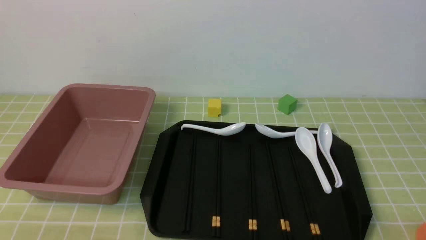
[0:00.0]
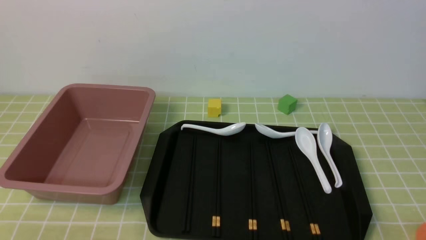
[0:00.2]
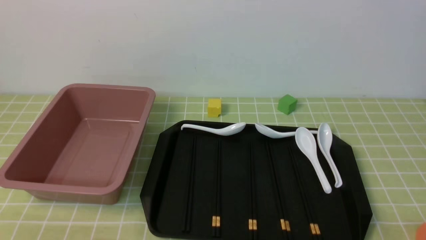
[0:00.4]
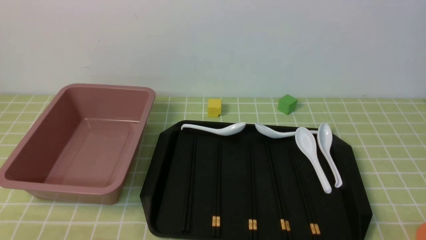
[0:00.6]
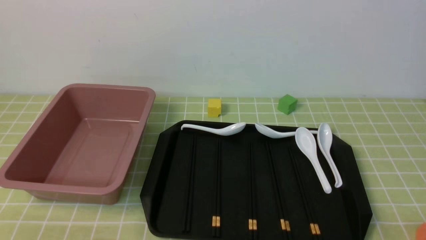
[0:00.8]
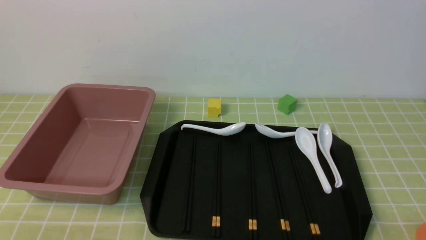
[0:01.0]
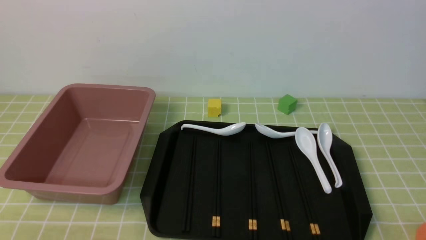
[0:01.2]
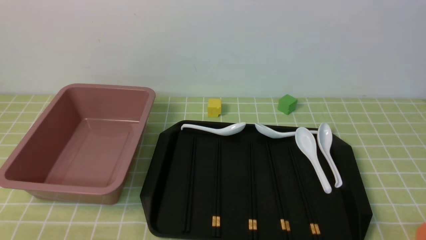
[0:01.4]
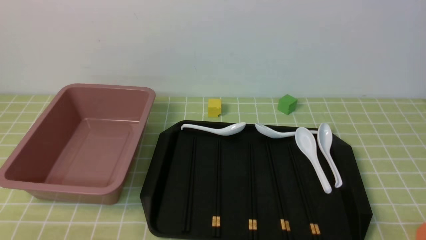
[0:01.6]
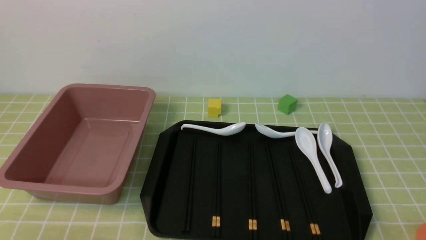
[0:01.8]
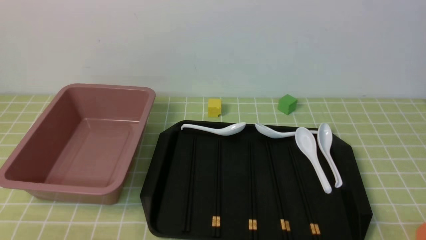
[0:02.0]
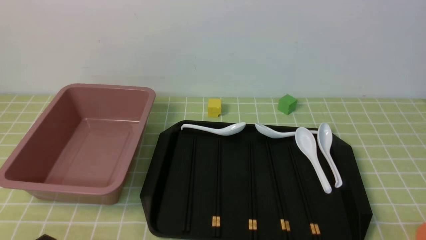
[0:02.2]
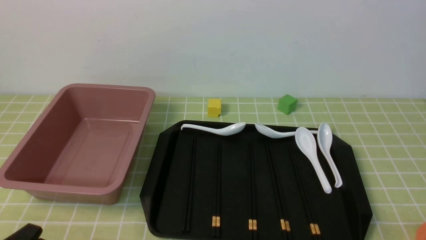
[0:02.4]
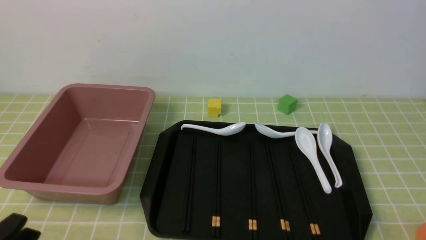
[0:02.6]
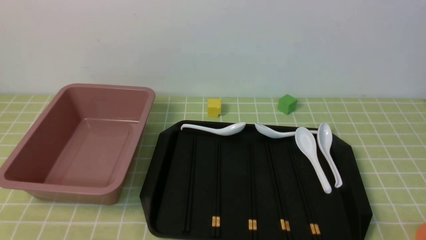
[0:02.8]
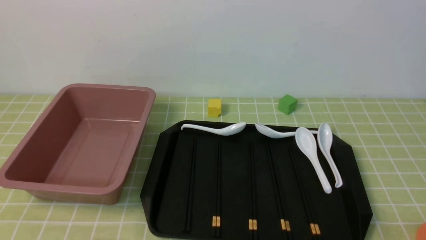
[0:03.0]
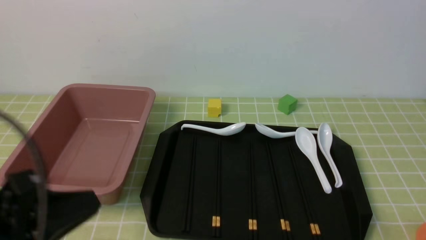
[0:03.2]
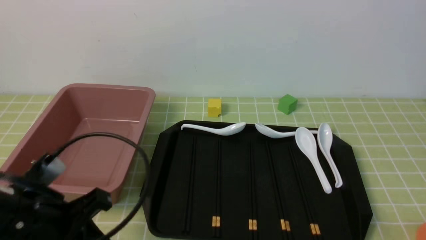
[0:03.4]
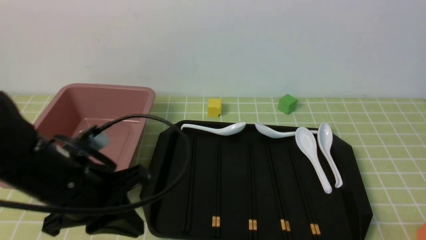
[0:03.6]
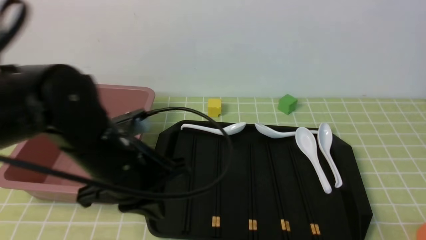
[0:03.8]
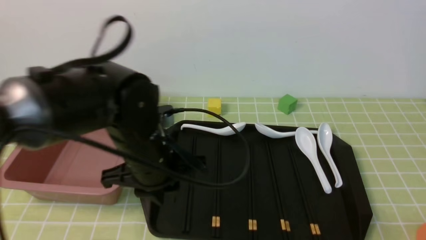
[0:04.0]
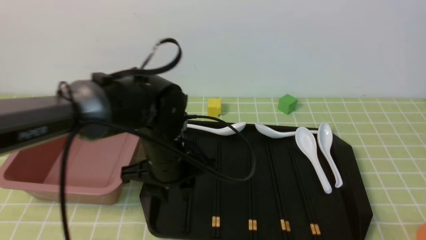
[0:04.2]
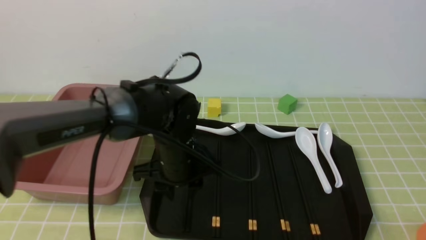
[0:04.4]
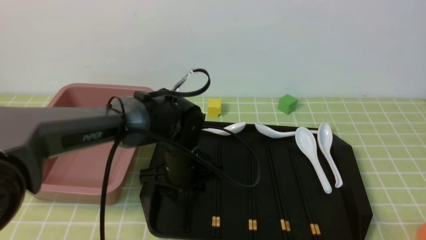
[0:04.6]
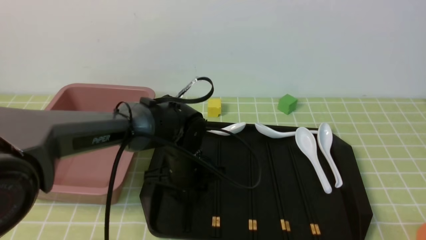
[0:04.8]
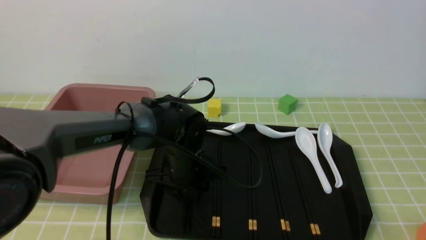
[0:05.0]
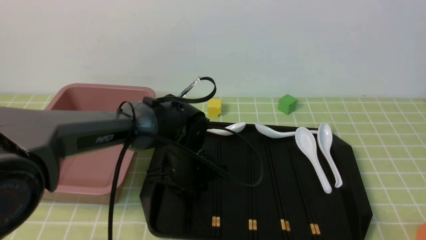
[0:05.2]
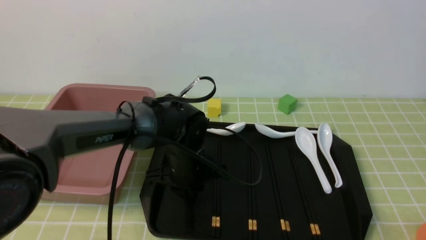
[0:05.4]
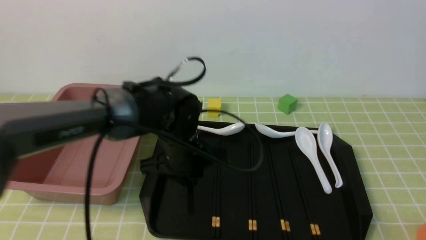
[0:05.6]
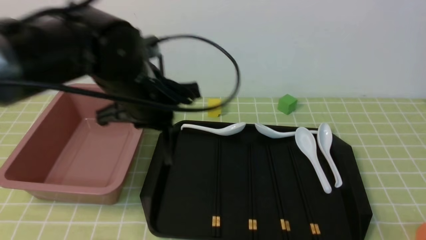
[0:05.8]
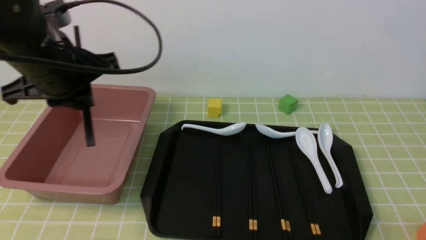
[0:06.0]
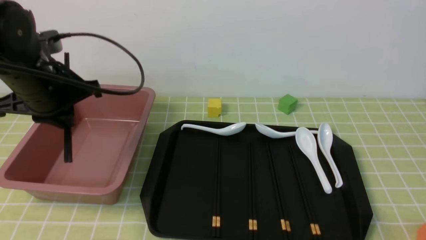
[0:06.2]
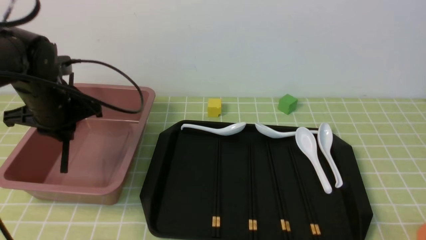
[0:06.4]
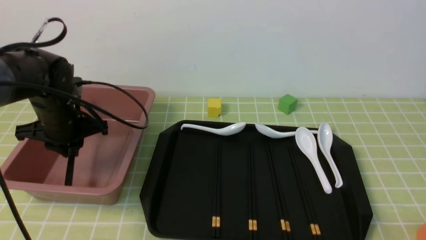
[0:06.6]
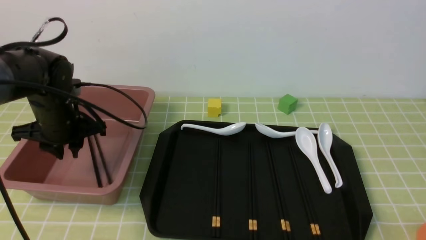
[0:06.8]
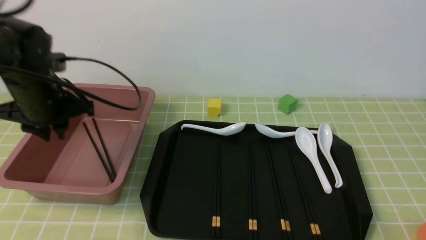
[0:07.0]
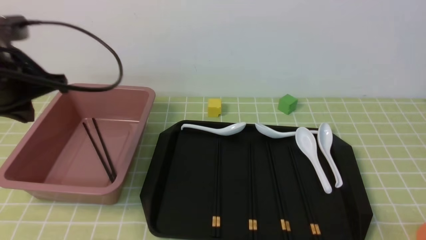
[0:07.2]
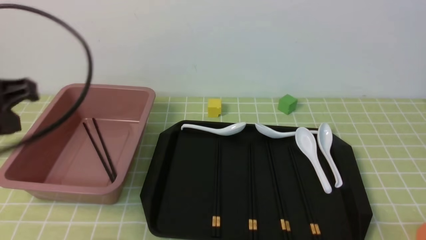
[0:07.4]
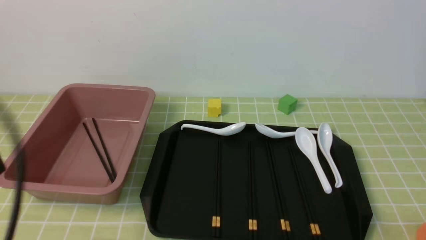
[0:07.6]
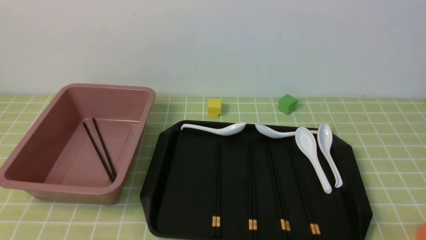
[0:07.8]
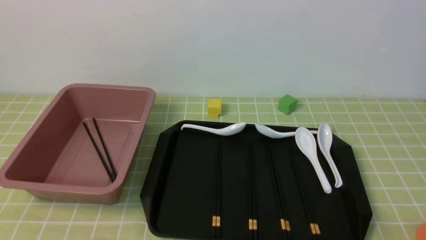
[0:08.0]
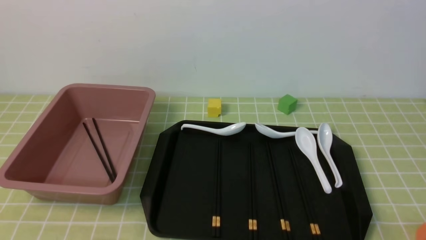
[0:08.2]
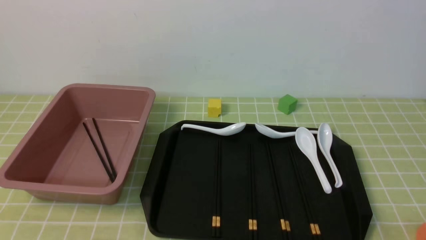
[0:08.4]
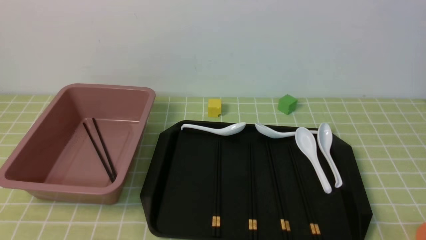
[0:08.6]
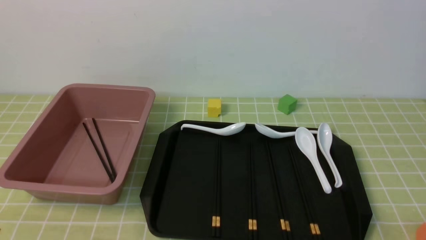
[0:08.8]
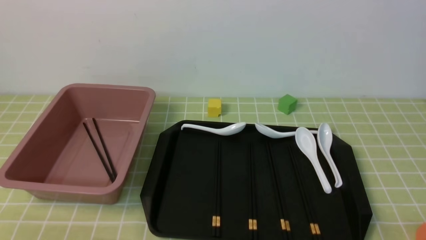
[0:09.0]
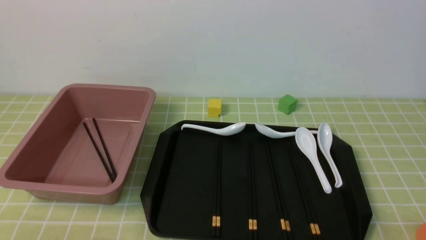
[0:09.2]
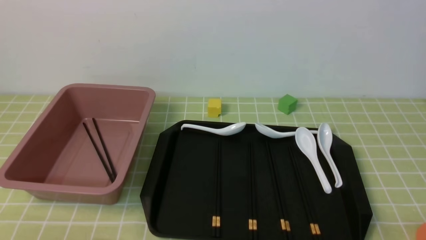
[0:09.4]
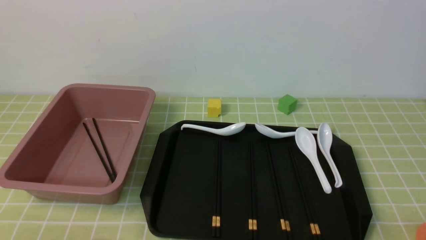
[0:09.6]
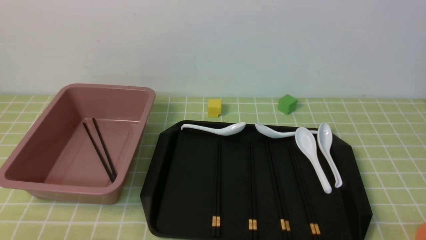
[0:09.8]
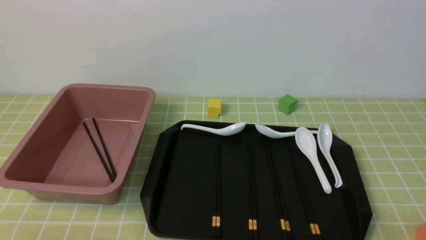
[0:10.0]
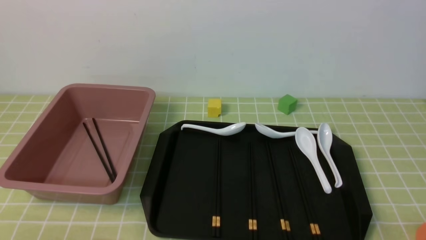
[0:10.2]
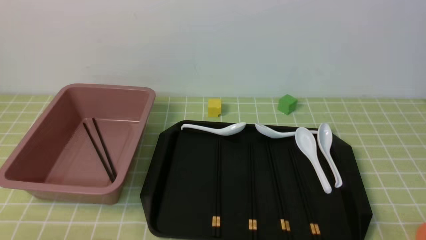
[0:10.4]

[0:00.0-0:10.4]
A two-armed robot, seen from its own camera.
Step, 0:00.0 to 0:05.6: use the left arm to grab a pair of chopsticks.
Step, 0:05.8 to 0:07.0: use the left arm to put the chopsticks into the lunch box.
0:03.0 to 0:04.4: The left gripper moves forward and to the right, some 35 cm, and opens its fingers.
0:04.4 to 0:06.0: The left gripper shifts about 15 cm upward and to the left, and closes up.
0:06.0 to 0:07.4: The left gripper is displaced to the left and backward by roughly 15 cm, and goes downward and returns, roughly 10 cm each way.
0:07.4 to 0:09.0: The left gripper goes some 25 cm backward and downward.

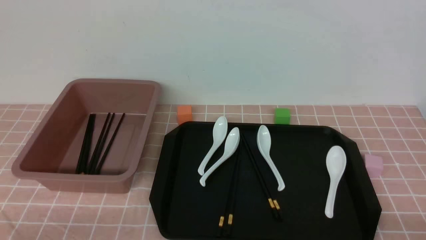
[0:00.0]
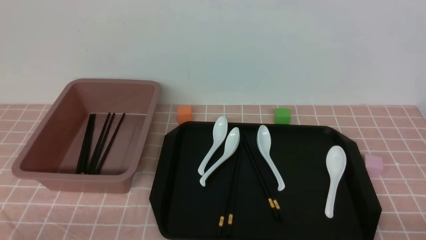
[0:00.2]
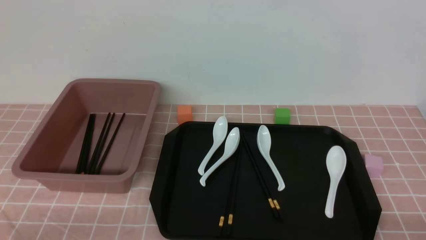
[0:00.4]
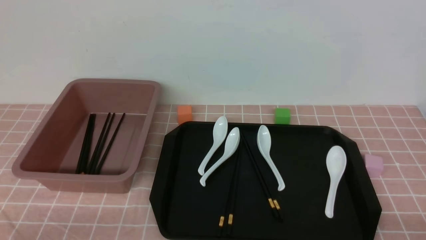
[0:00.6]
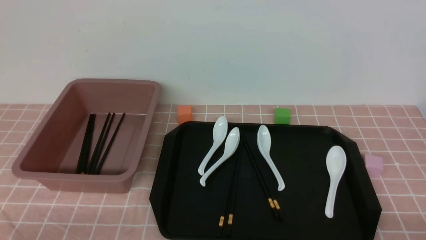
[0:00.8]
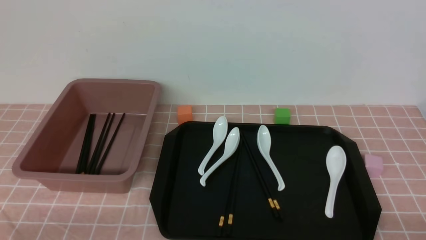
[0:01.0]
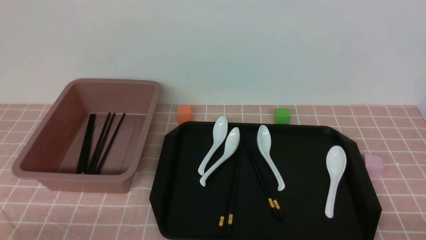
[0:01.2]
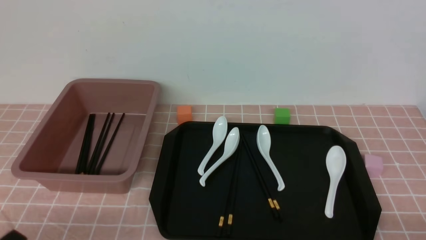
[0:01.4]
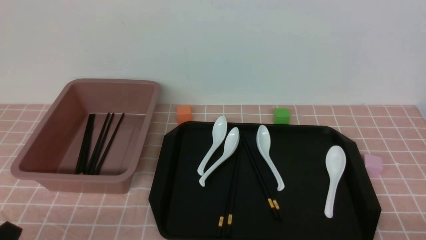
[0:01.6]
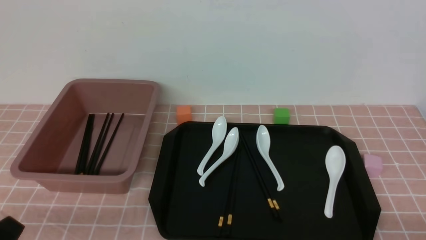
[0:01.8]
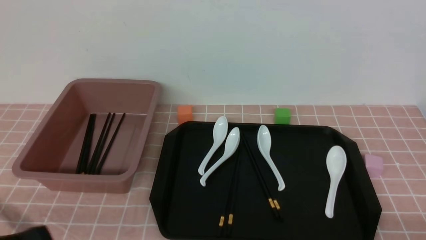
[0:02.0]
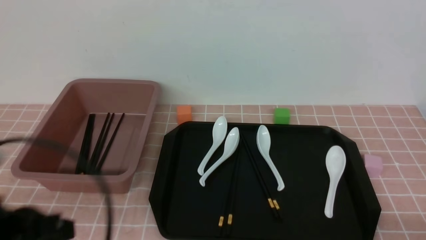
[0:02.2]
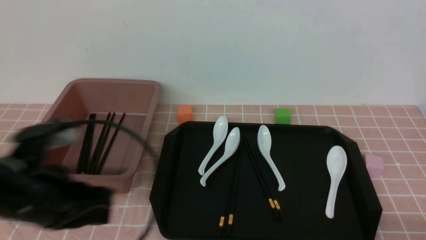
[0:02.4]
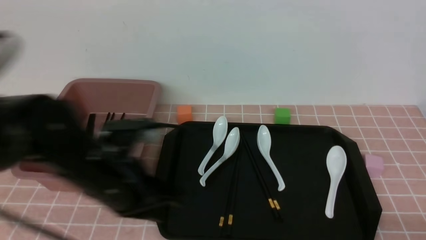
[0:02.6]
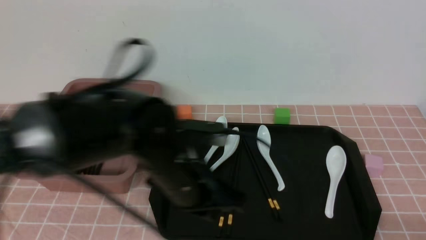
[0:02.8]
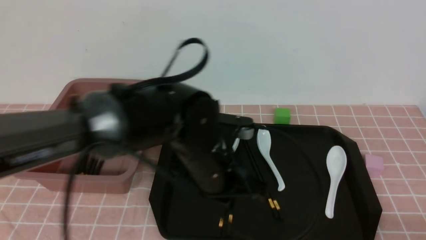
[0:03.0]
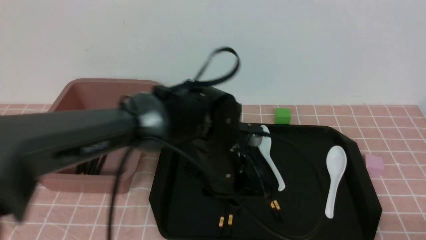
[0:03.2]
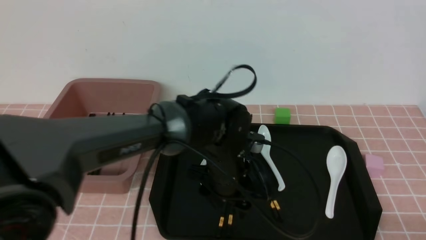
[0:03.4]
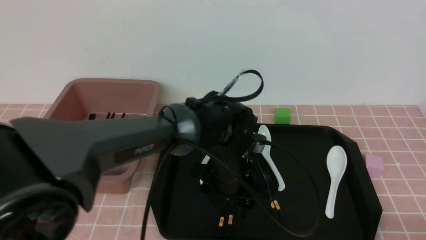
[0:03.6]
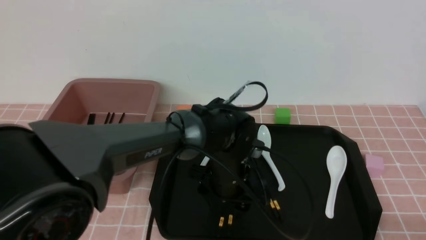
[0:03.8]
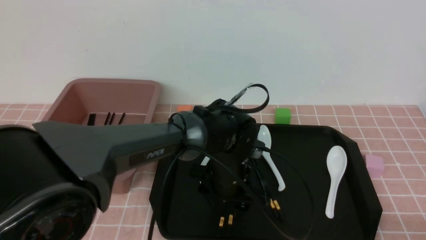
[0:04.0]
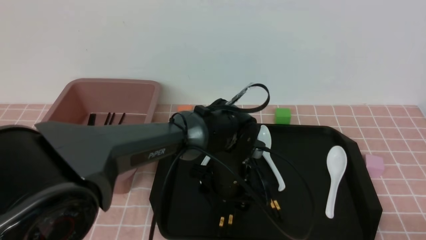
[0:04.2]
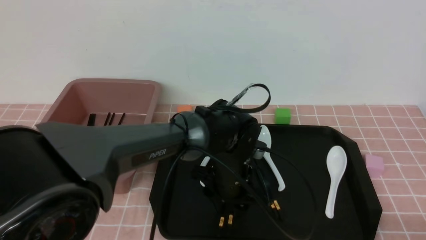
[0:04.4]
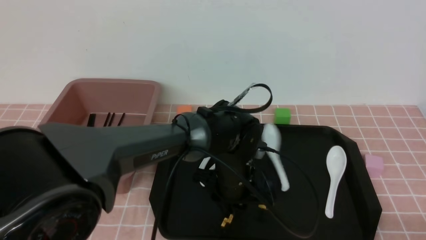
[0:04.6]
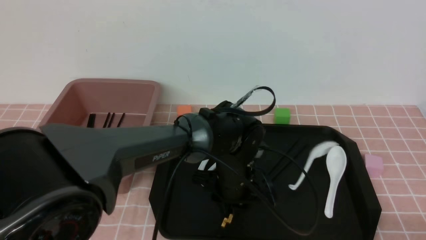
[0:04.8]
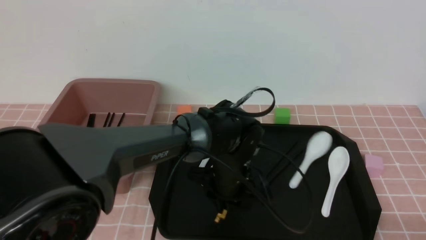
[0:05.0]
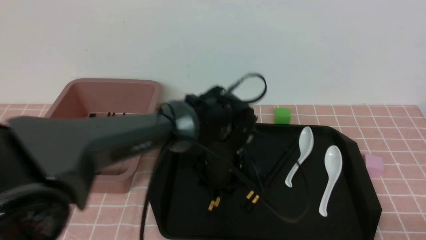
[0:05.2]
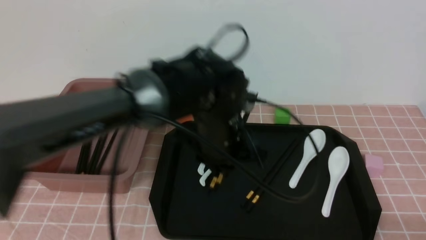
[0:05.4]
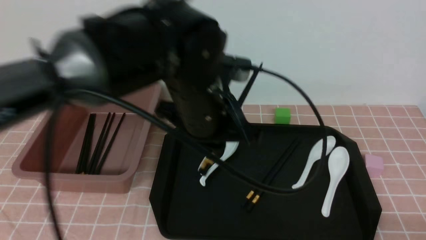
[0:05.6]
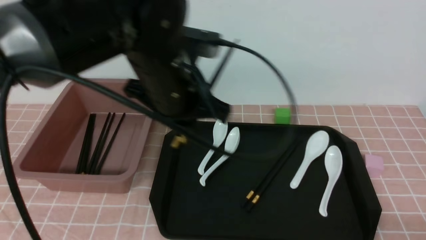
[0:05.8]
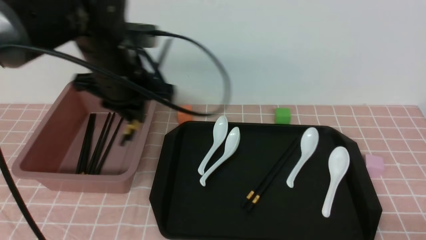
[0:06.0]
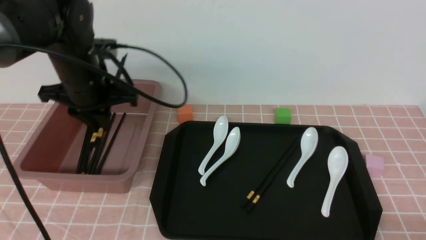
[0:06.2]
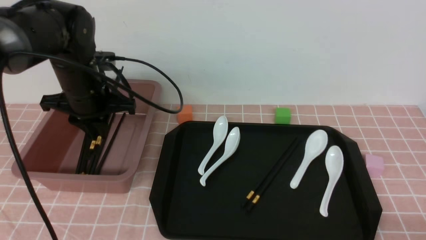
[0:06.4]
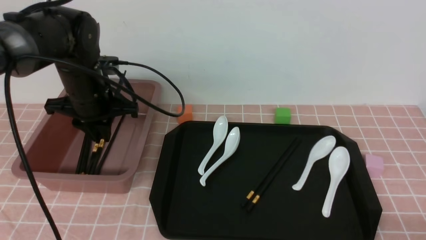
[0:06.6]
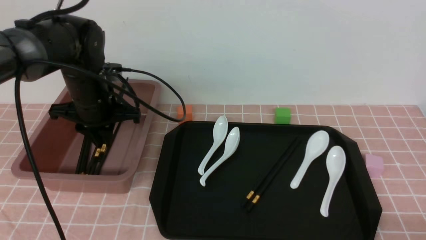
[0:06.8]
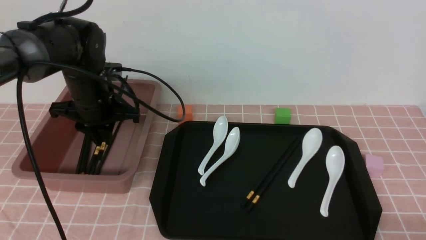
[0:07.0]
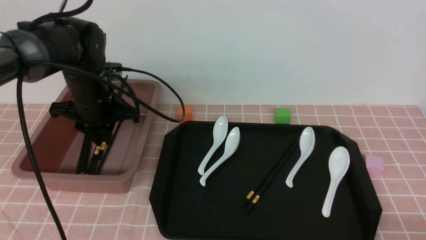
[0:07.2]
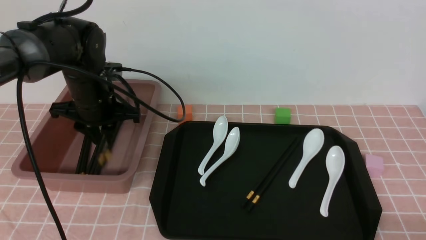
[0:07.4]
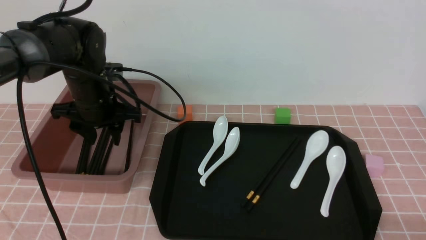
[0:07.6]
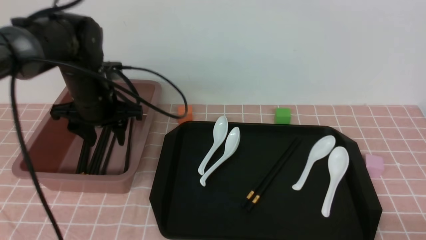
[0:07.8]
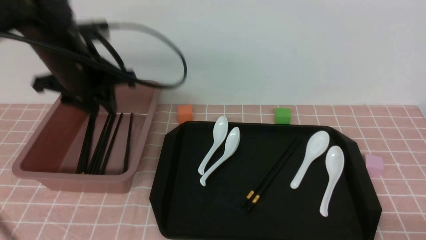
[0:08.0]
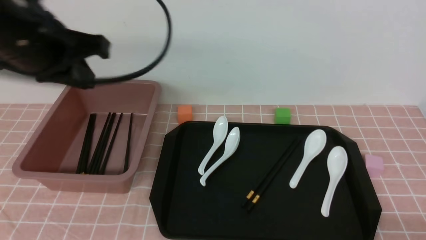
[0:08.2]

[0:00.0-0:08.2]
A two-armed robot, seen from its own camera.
Step, 0:00.0 to 0:05.2: use the left arm to grab a pair of chopsticks.
Step, 0:05.6 to 0:07.6: use the left arm to put the chopsticks into the lunch box.
0:01.6 to 0:03.2: The left gripper goes some 35 cm to the right and forward, and closes and opens again. Meanwhile the right gripper opens.
0:03.2 to 0:05.0: The left gripper changes place by roughly 5 cm, and opens, then closes again.
0:05.0 to 0:06.6: The left gripper moves to the left and upward, approximately 25 cm.
0:06.6 to 0:08.2: The left gripper is displaced backward and upward by about 20 cm, and opens, then closes once more.
